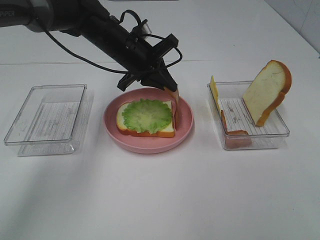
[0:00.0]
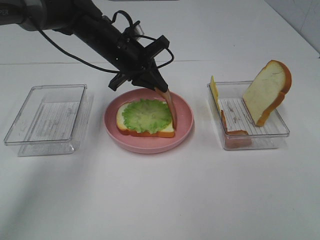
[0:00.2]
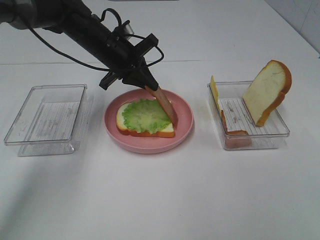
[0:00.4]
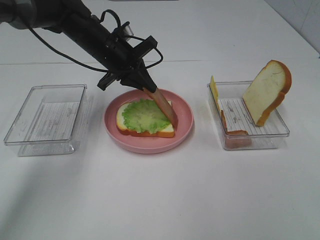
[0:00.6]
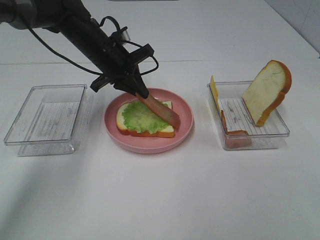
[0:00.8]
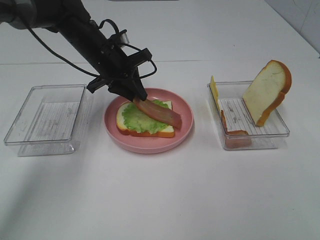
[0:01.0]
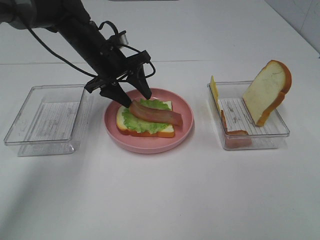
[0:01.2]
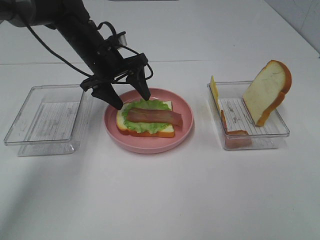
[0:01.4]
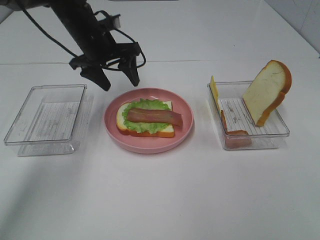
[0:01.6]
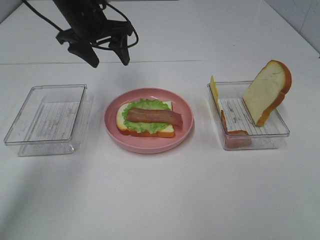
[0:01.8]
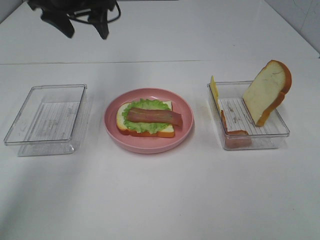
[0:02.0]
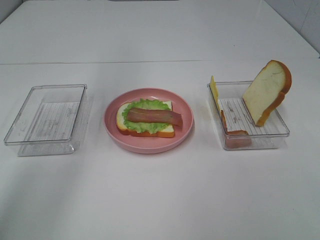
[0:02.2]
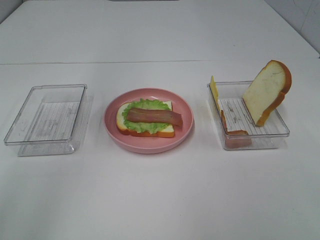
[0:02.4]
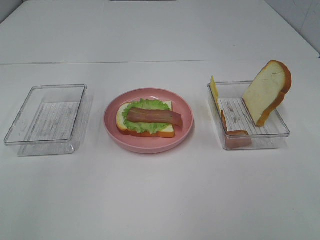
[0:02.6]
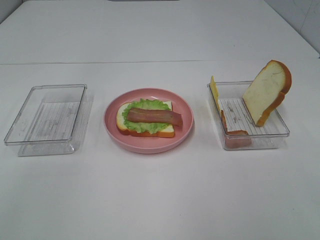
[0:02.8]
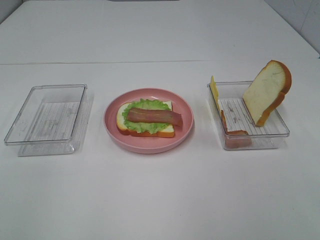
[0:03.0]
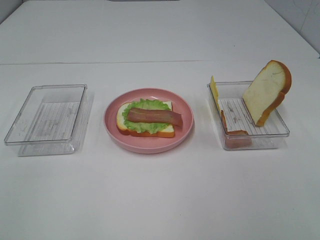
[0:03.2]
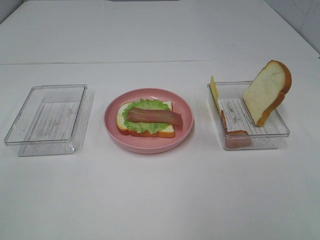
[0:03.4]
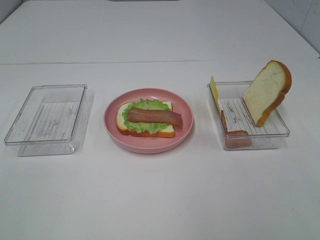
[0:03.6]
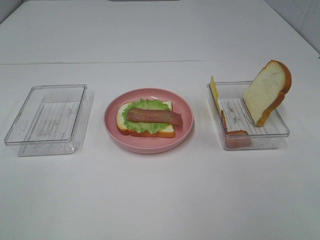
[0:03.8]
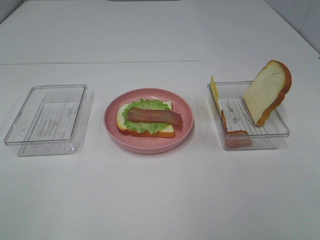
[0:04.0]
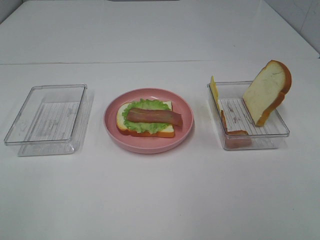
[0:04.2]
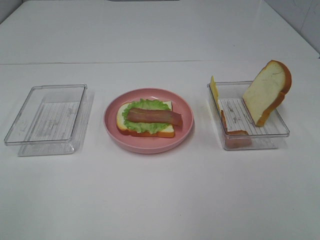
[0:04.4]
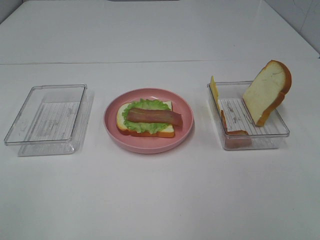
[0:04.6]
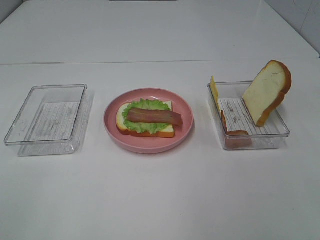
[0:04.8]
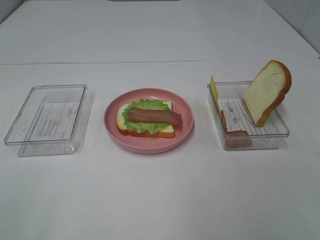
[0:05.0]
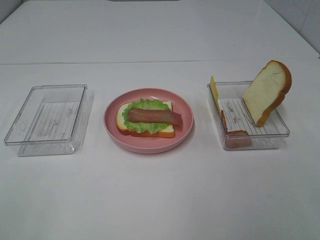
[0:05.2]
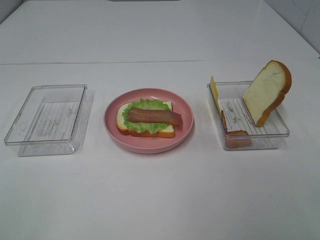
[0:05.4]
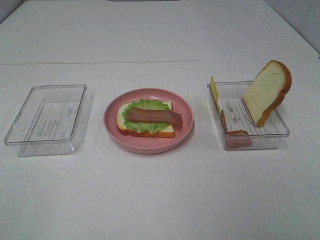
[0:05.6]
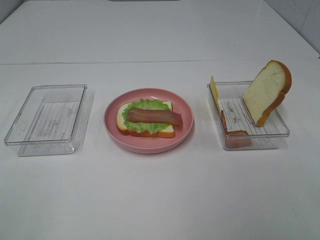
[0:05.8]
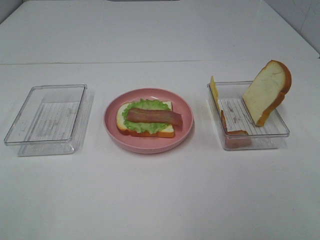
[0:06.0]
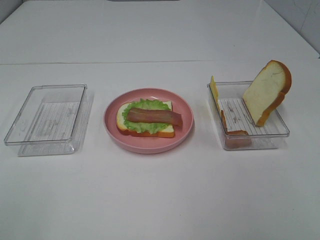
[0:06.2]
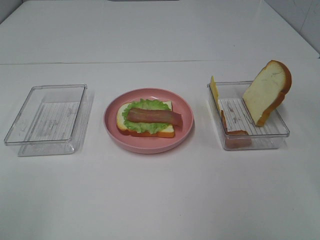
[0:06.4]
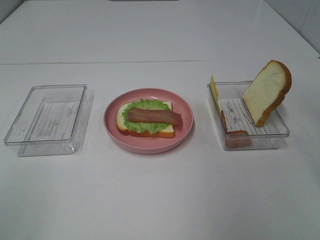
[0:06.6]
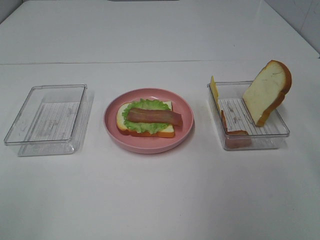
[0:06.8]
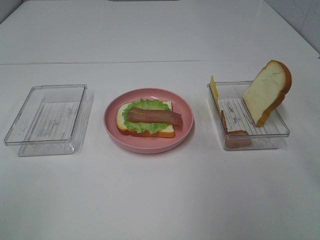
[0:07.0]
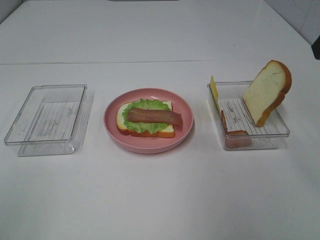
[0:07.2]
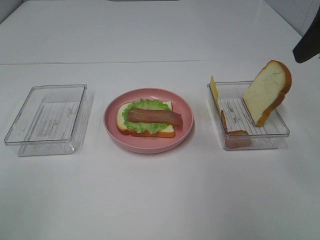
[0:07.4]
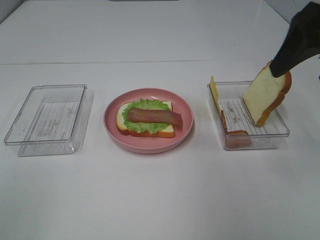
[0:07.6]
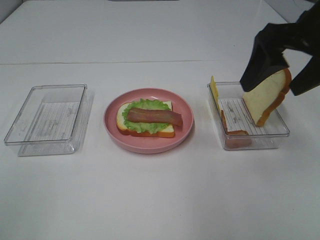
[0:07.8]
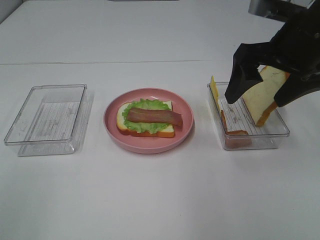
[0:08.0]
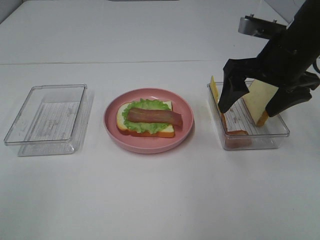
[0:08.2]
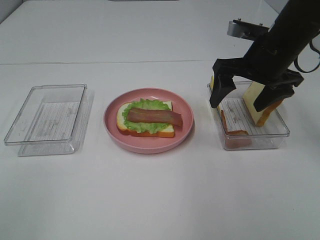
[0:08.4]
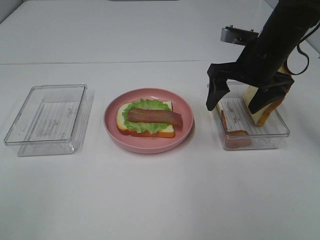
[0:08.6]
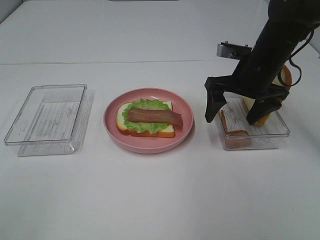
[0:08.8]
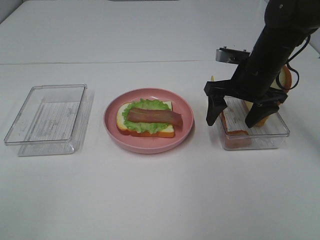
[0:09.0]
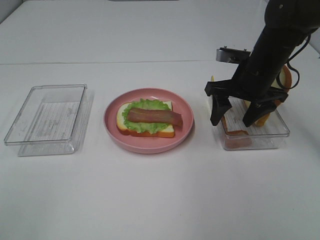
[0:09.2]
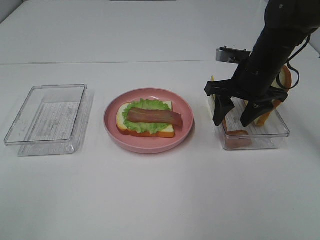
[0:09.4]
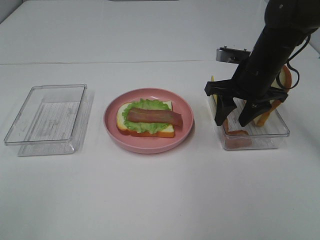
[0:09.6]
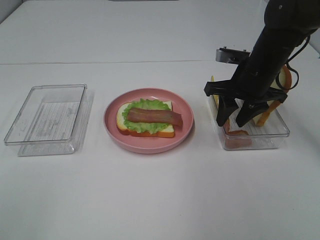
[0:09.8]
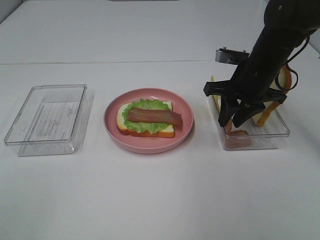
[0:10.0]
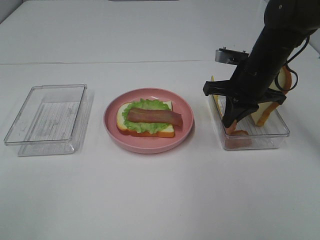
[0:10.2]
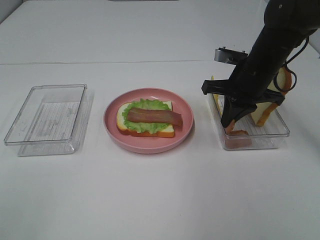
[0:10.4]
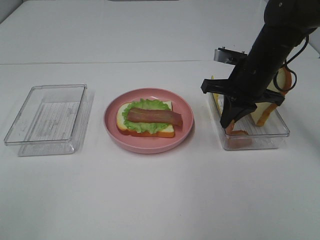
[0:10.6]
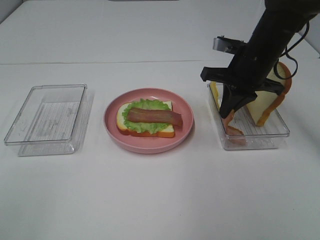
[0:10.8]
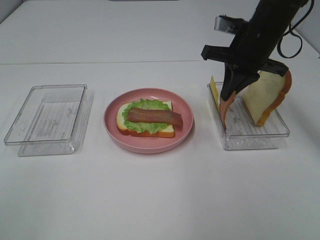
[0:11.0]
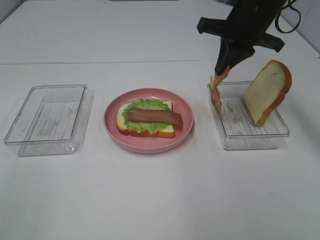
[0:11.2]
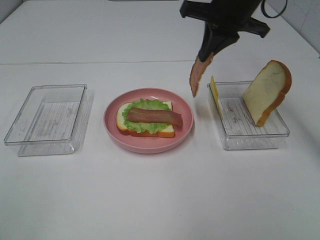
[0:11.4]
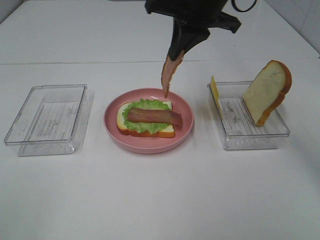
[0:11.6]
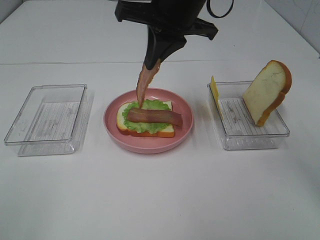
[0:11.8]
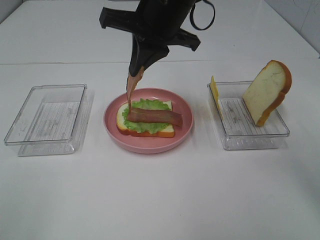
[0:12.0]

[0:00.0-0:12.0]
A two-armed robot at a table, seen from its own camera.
Task of the whole recording: Make sandwiches.
Step, 0:01.4 to 0:10.2: Right hand:grab the bacon.
0:00.0 to 0:01.6: The left gripper moves to the left, approximately 5 cm, and opens up.
0:01.6 to 0:03.0: The left gripper heads upward and backward, covering some 60 cm.
0:06.0 to 0:07.6: The right gripper travels forward by approximately 25 cm.
0:07.6 to 0:09.0: The right gripper heads downward and forward, covering some 20 cm.
0:09.0 to 0:10.4: The right gripper closes.
0:10.4 to 0:12.0: The right gripper goes about 20 cm to the left and upward.

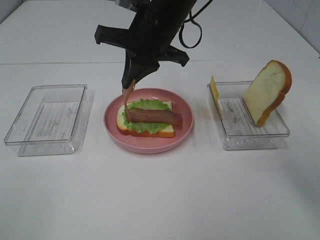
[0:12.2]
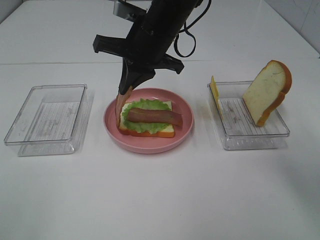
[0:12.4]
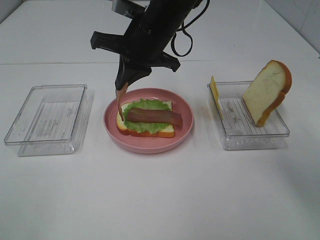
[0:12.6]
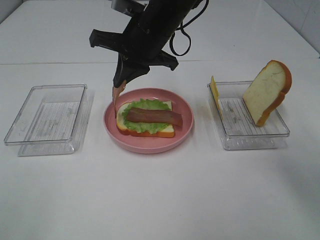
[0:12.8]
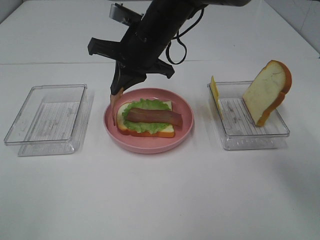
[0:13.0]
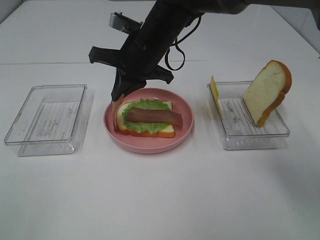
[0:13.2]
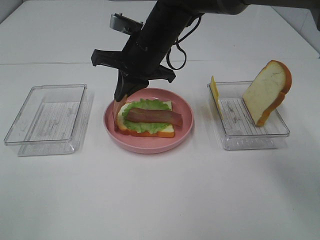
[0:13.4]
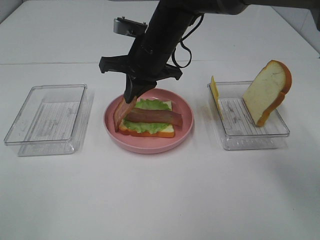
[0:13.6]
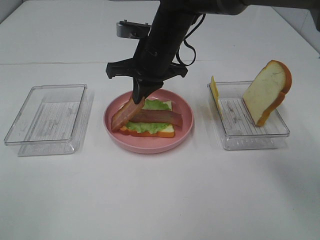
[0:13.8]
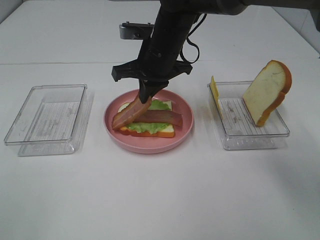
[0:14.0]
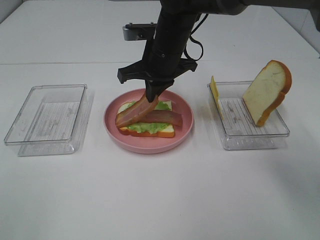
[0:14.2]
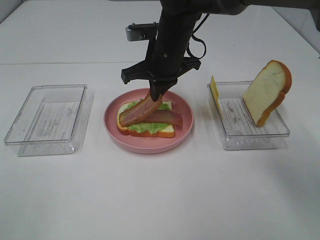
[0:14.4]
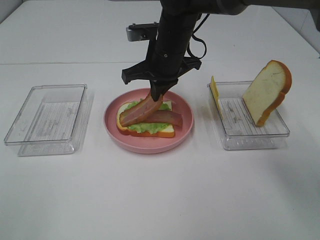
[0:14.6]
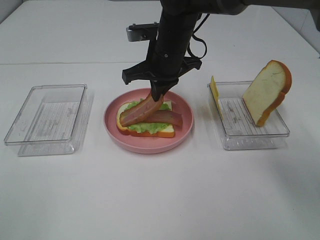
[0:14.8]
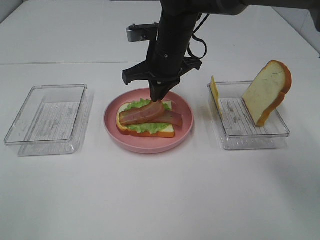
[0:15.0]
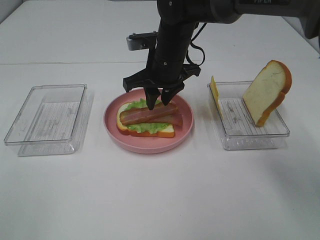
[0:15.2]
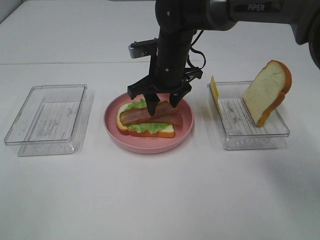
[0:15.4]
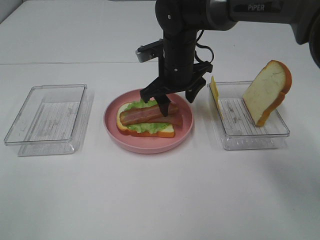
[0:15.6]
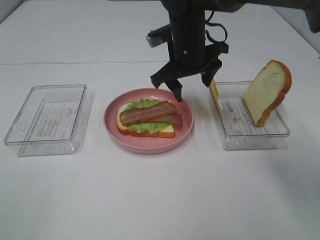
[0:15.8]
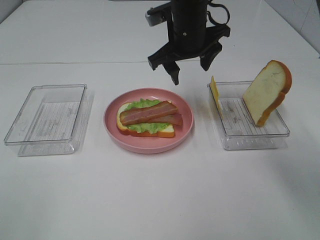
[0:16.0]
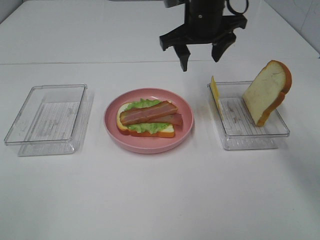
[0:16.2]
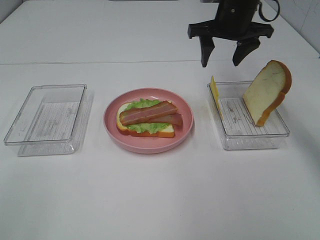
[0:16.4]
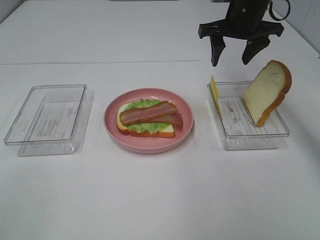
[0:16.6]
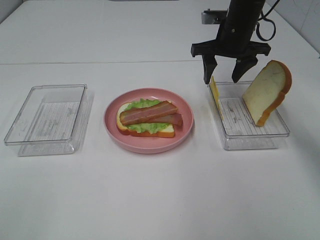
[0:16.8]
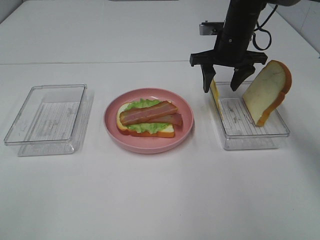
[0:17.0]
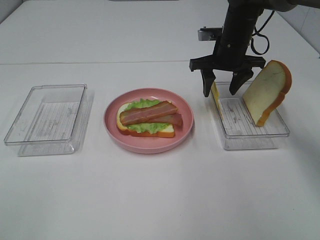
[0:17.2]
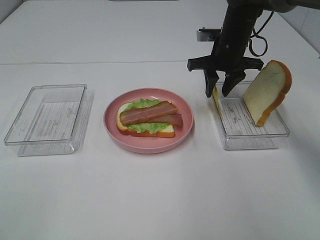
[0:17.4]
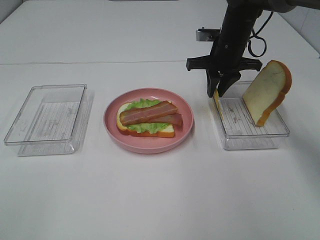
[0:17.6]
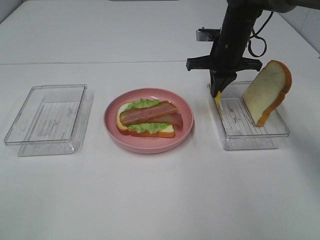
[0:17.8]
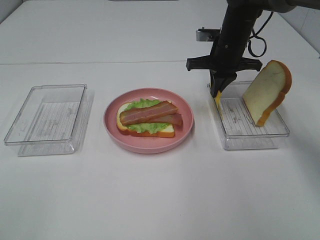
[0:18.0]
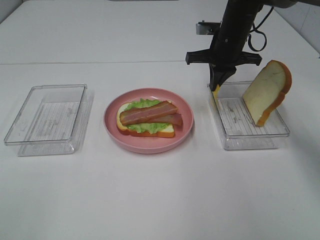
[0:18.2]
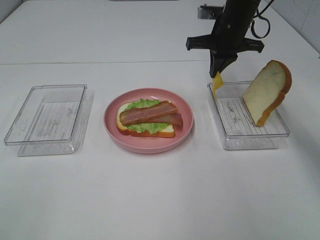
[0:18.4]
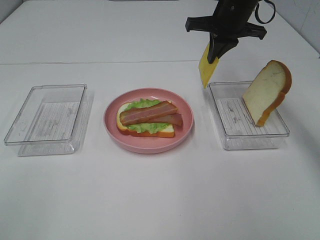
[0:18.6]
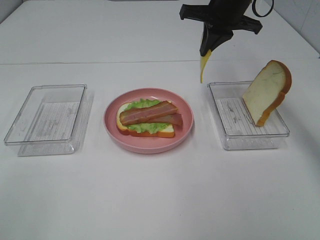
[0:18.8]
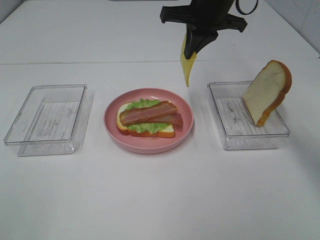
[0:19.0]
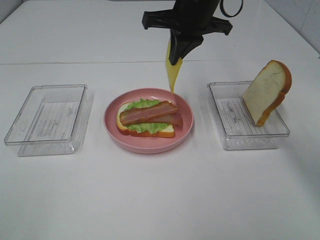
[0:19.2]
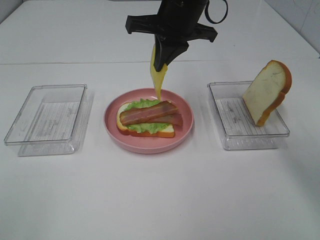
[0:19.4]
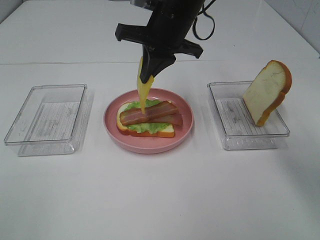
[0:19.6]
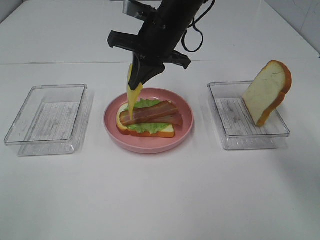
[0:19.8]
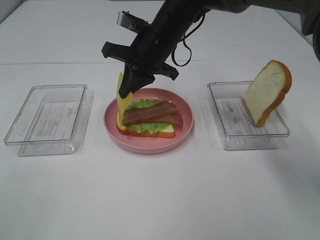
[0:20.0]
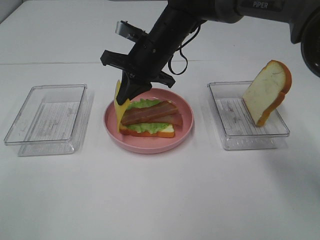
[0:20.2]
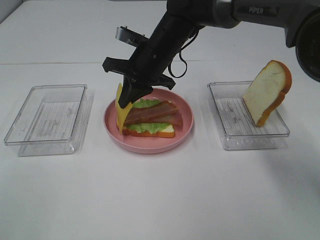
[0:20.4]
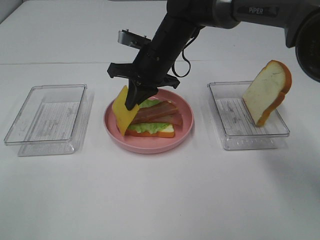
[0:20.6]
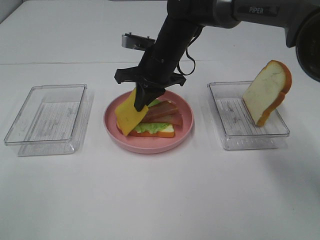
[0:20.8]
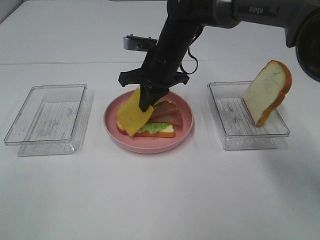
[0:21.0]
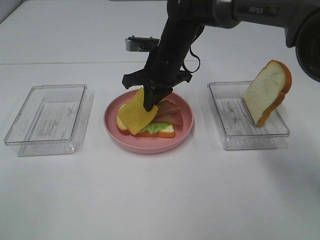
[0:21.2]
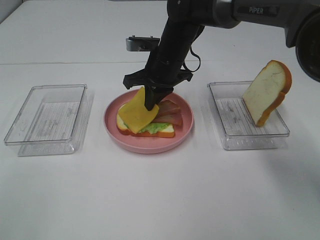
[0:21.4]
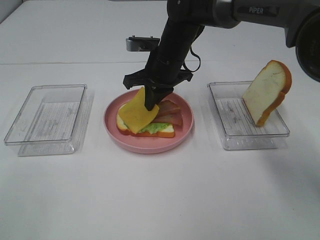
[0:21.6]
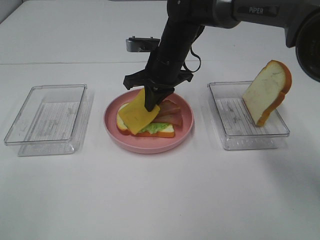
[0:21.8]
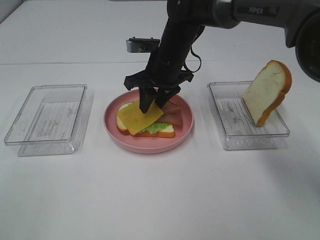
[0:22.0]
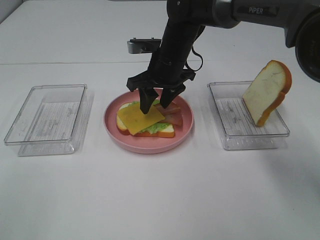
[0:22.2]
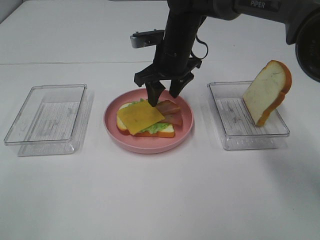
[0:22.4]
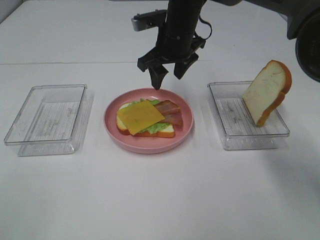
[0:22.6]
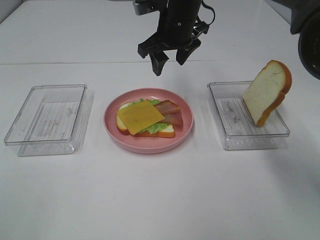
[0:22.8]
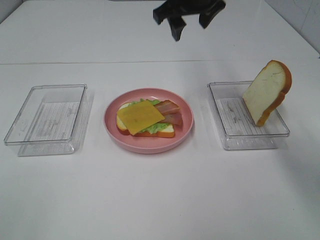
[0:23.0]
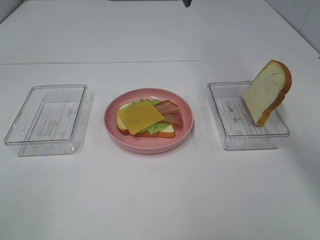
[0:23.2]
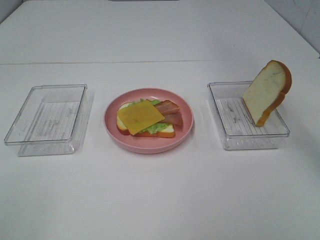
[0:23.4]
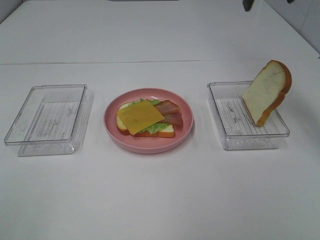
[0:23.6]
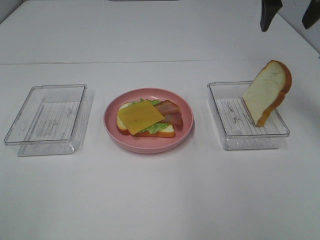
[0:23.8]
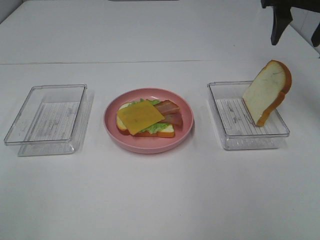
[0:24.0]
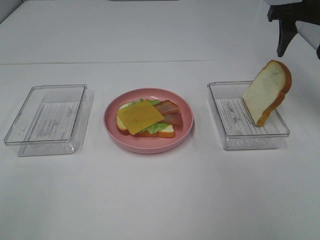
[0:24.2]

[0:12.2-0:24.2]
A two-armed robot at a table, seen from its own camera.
Task of the whole recording: Make sandwiches.
Step, 0:12.2 to 0:15.4: Right hand:place bacon on bacon.
Step, 0:15.6 to 0:18.0: Right hand:grab the cheese slice.
Step, 0:18.2 to 0:22.2: Right hand:place the cheese slice on top of the bacon.
0:12.2 to 0:13.8: The right gripper is displaced downward by roughly 5 cm.
0:13.8 to 0:15.2: The right gripper opens its fingers.
0:15.2 to 0:16.6: The right gripper moves to the right and upward, approximately 15 cm.
0:16.6 to 0:18.2: The right gripper goes roughly 5 cm downward, and closes.
0:18.2 to 0:19.8: The right gripper travels to the left and backward by some 15 cm.
0:19.8 to 0:21.2: The right gripper goes about 5 cm downward.
0:21.2 to 0:22.6: The right gripper goes about 5 cm upward, and opens up.
0:22.6 to 0:24.2: The right gripper is displaced to the right by approximately 25 cm.
